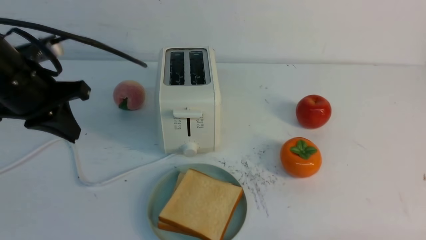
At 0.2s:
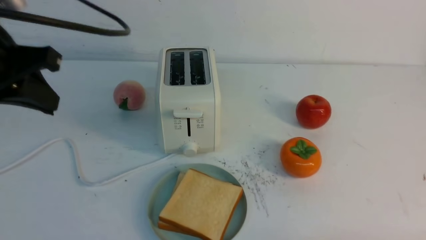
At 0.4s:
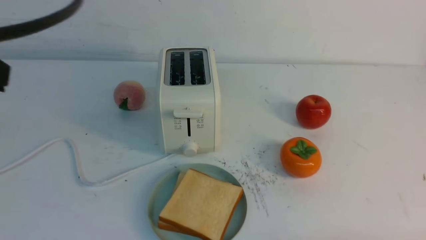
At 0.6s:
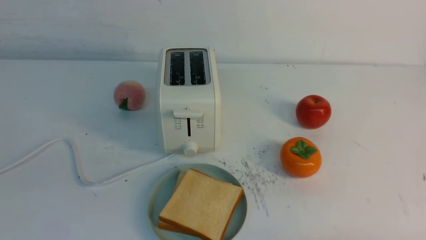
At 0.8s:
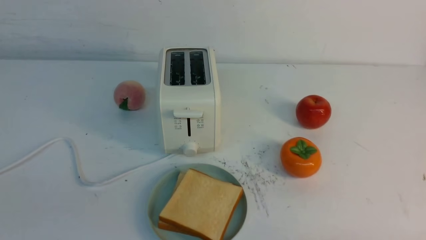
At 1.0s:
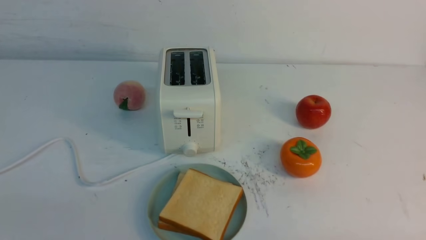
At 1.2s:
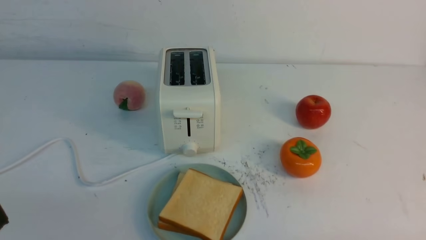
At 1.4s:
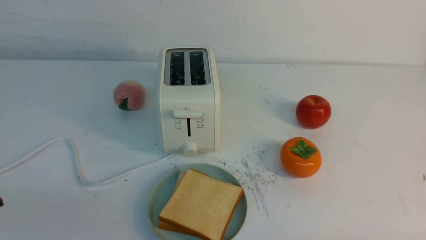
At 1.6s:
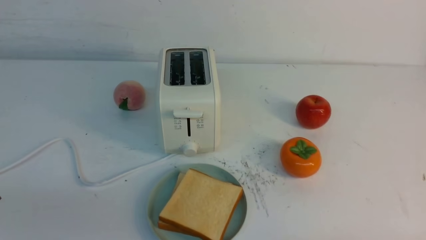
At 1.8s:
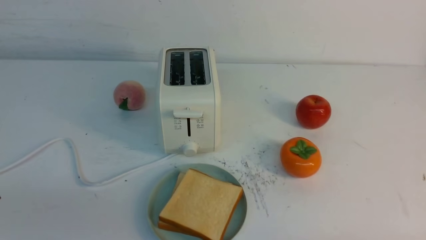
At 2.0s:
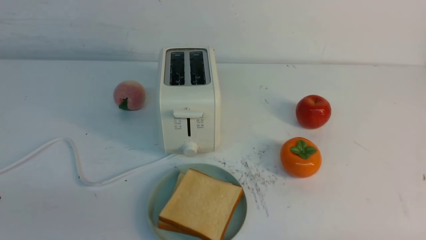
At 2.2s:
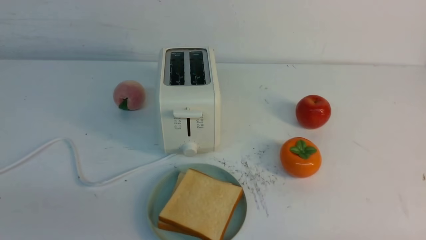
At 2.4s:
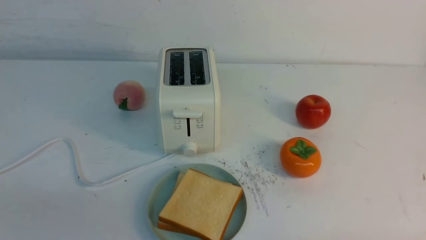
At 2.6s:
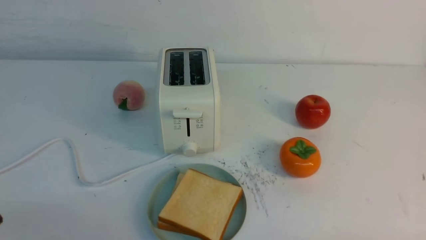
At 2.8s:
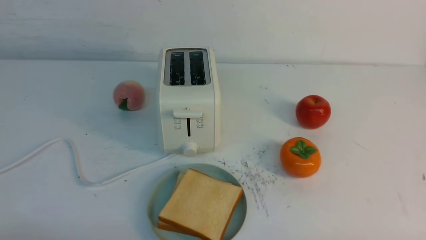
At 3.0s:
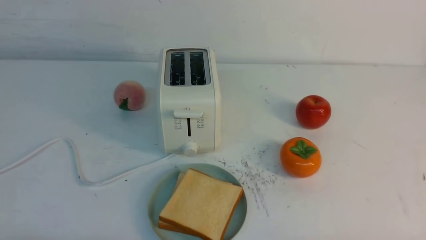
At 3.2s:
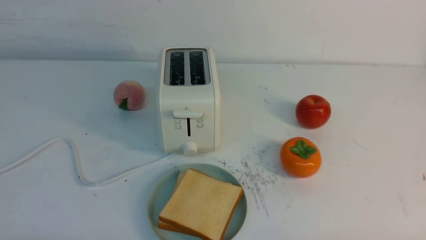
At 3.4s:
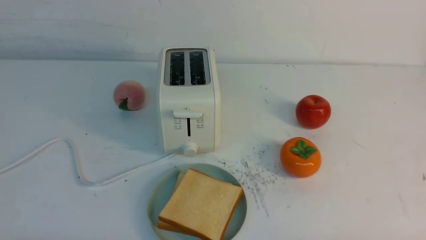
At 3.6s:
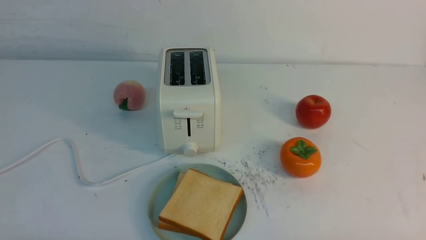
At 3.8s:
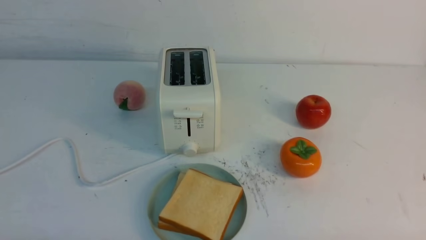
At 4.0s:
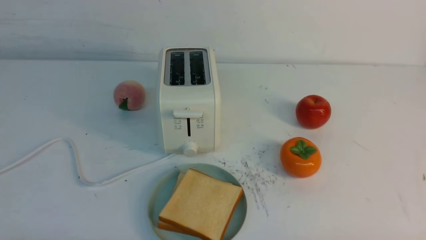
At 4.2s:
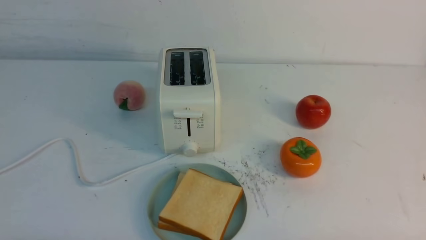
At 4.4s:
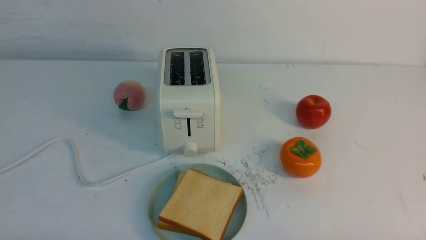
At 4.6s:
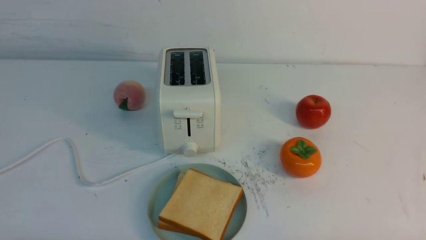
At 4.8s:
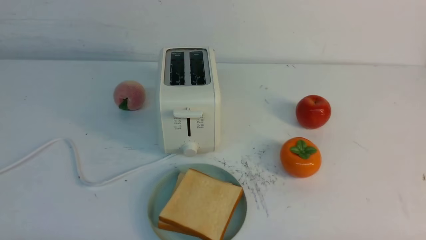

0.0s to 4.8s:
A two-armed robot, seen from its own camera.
Task of the whole recording: take toasted bread from bread machine on white table place on plate.
0.0s to 1.6s: The left gripper heads backward, covering some 25 cm.
3.2s to 4.8s: Both grippers stay put.
